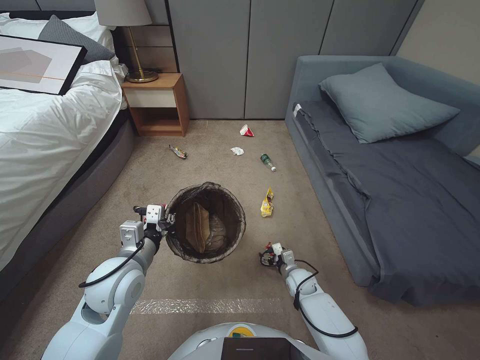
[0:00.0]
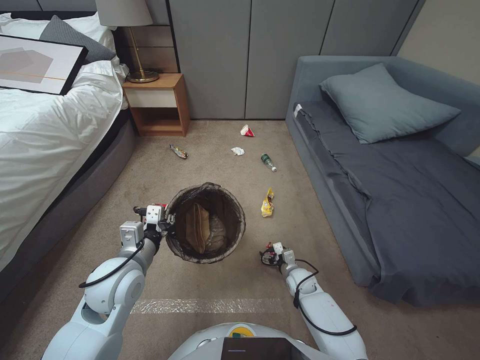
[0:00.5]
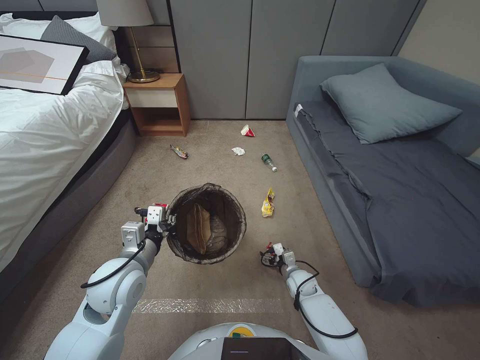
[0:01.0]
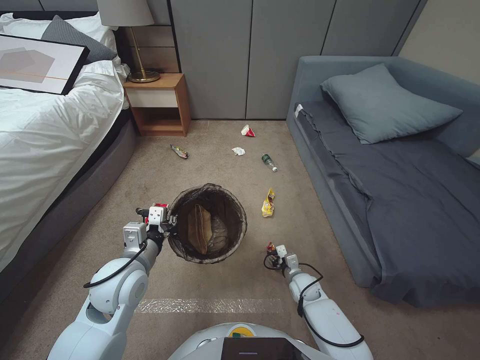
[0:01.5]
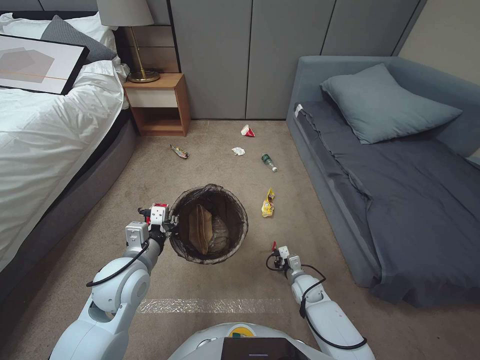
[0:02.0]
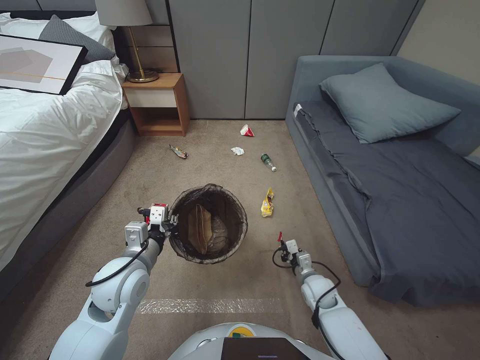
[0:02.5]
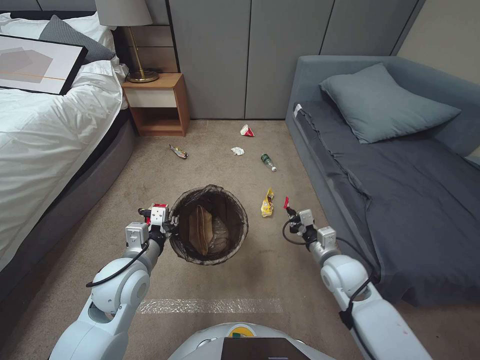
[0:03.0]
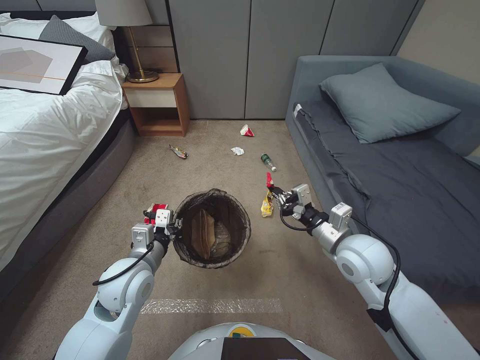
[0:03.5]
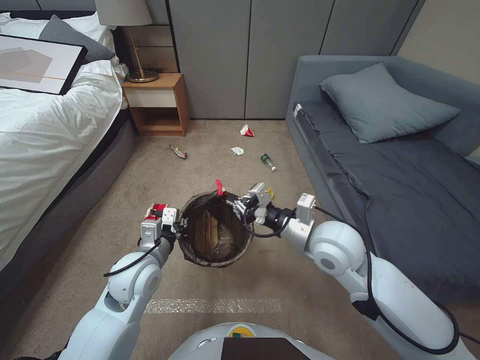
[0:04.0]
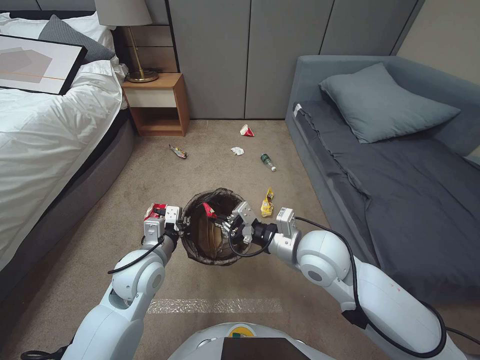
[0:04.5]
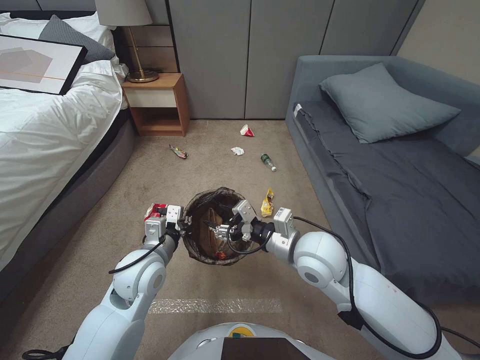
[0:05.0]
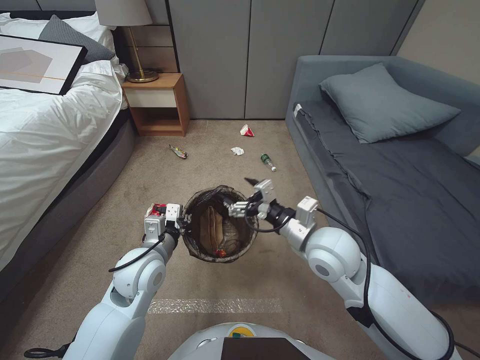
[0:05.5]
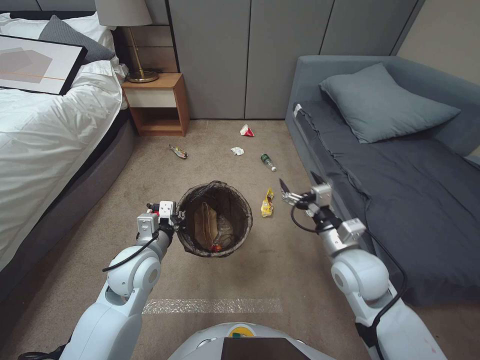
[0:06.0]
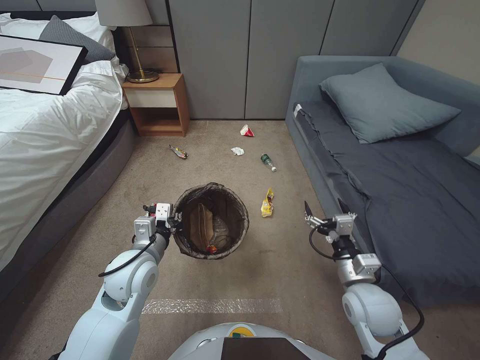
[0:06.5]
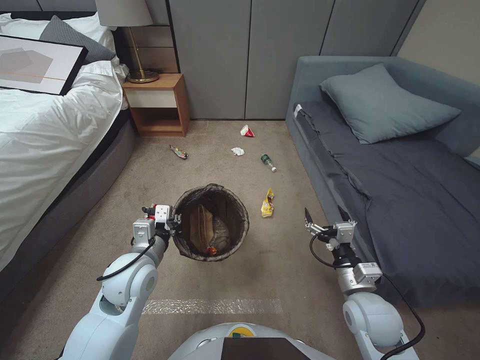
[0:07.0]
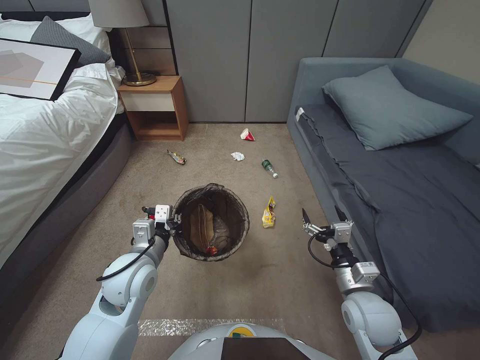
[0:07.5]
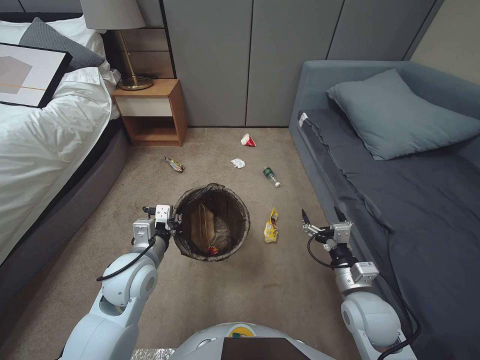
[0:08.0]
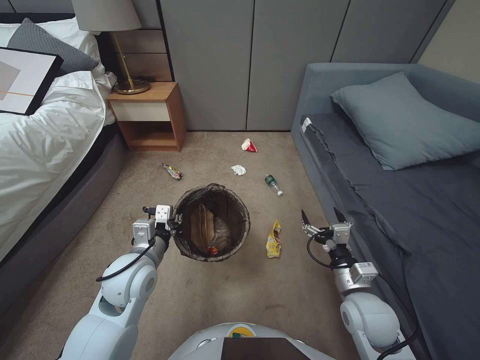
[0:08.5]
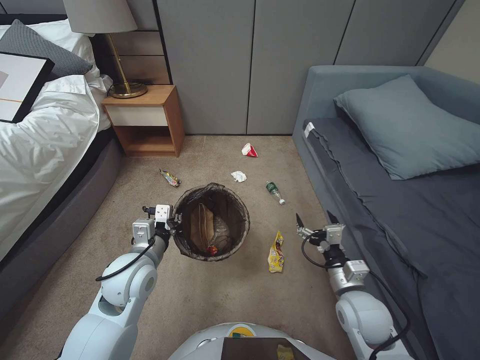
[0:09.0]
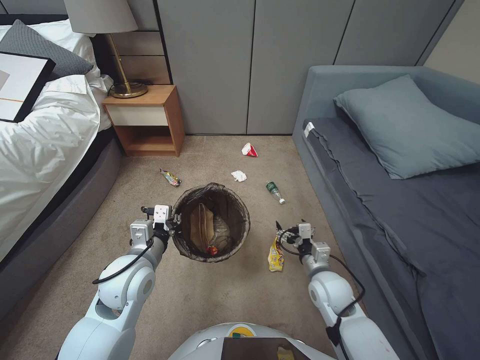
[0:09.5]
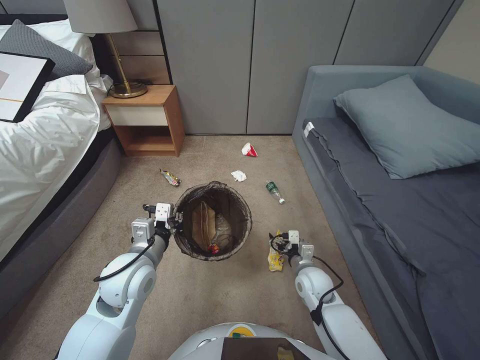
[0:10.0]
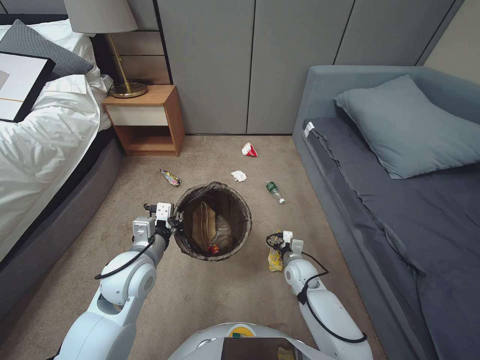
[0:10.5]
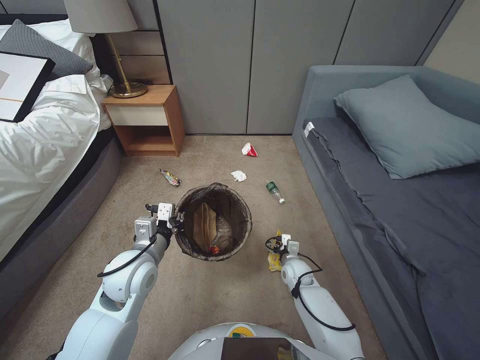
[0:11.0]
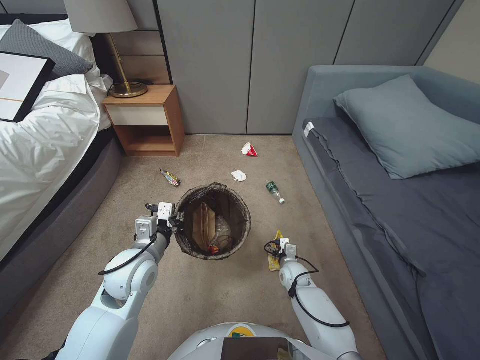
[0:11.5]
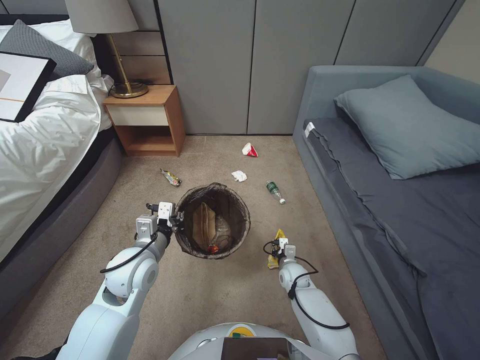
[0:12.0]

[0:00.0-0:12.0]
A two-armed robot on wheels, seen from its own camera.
Task of the whole recording: Pick up the trash bin, then pick up the garbage from the floor and place it into the trash bin.
0:00.0 to 0:02.0: The right gripper closes up.
0:02.0 to 0:04.0: The right gripper moves upward, roughly 35 cm.
0:04.0 to 0:06.0: The right gripper changes place by roughly 5 cm, and opens.
0:06.0 to 0:08.0: The right gripper moves downward, backward and to the right, approximately 15 cm.
0:08.0 to 0:10.0: The right gripper shifts some 15 cm downward, forward and to the left.
0:10.0 to 0:12.0: The right gripper travels downward and forward by about 10 cm, and closes up.

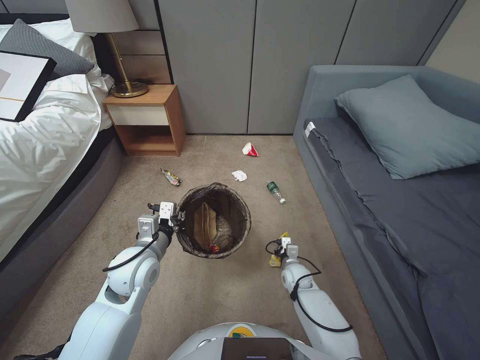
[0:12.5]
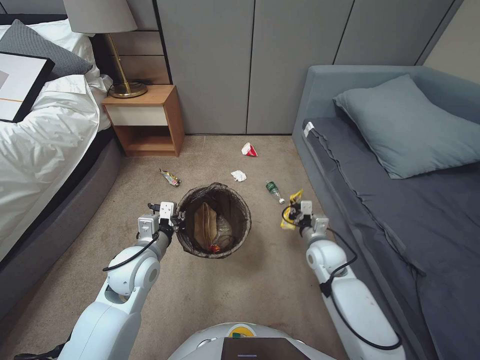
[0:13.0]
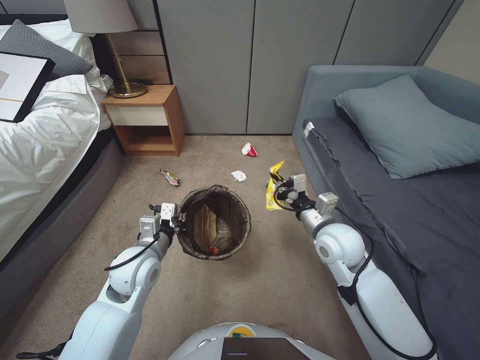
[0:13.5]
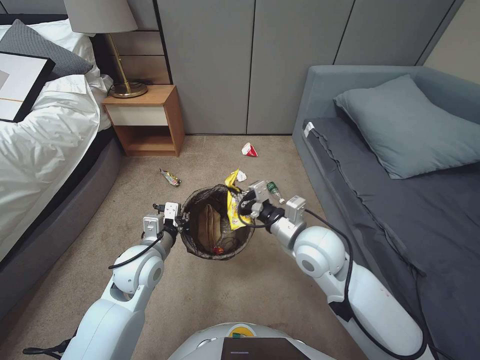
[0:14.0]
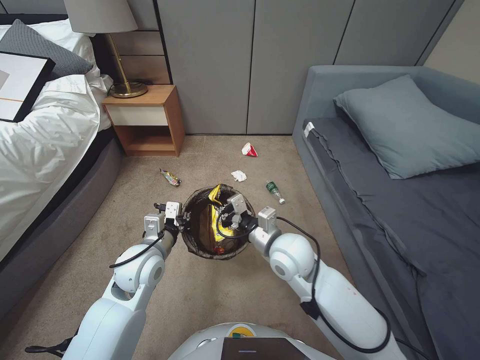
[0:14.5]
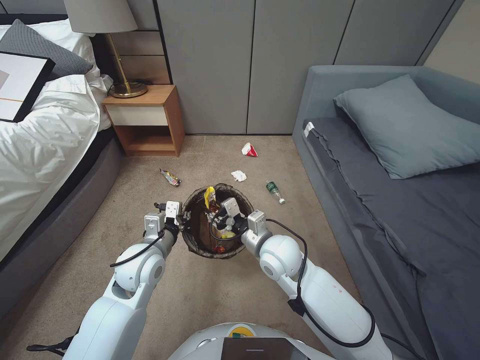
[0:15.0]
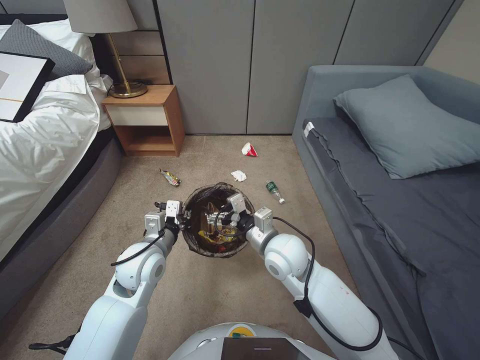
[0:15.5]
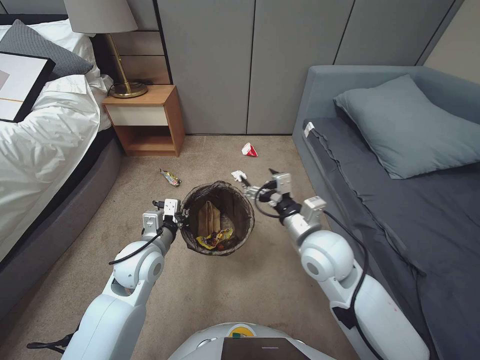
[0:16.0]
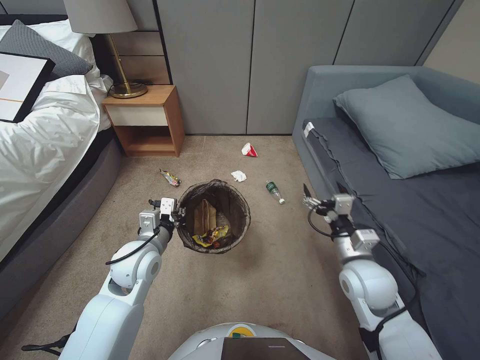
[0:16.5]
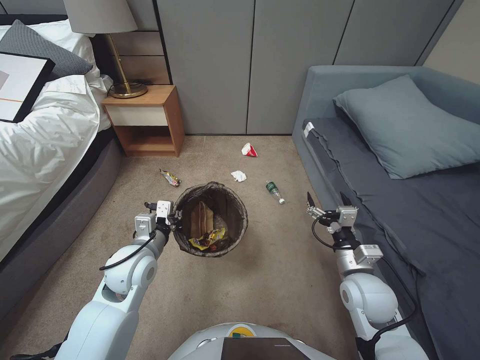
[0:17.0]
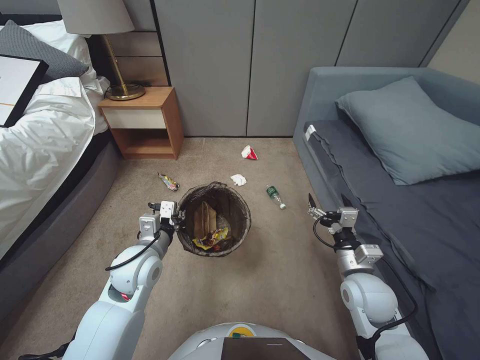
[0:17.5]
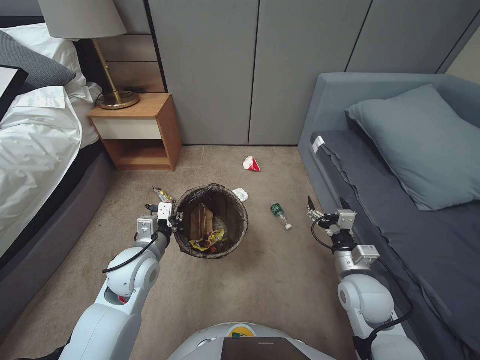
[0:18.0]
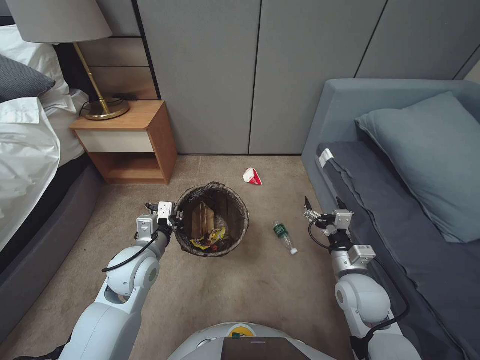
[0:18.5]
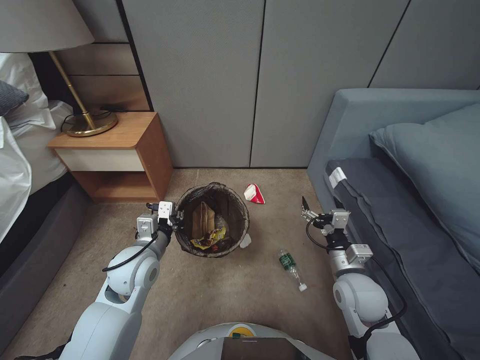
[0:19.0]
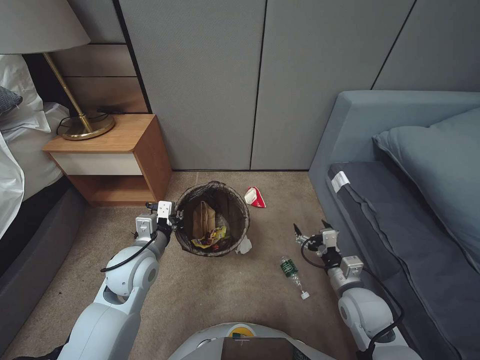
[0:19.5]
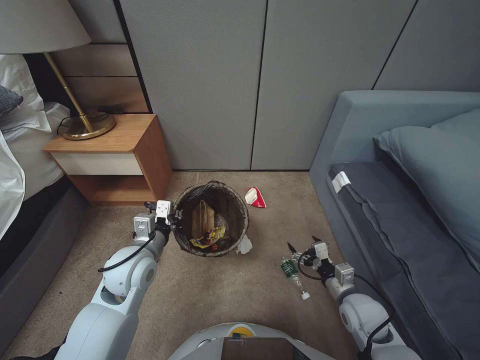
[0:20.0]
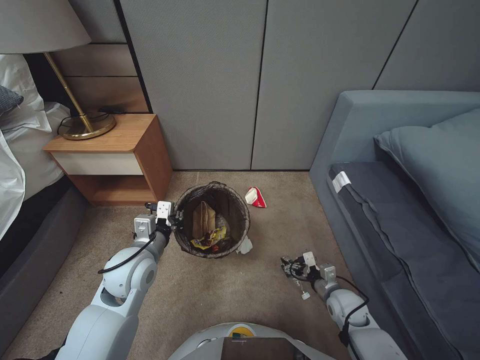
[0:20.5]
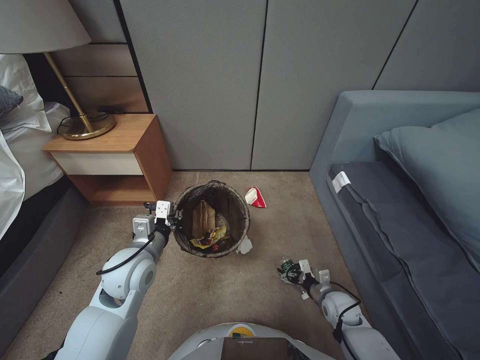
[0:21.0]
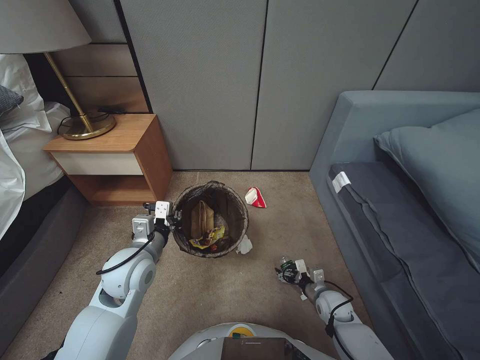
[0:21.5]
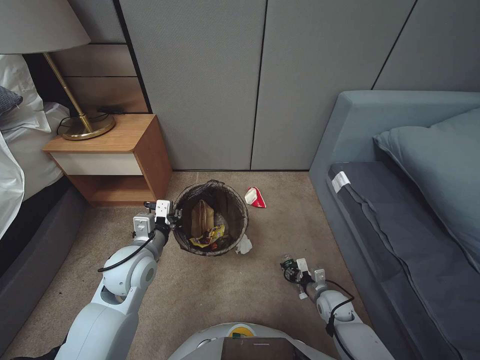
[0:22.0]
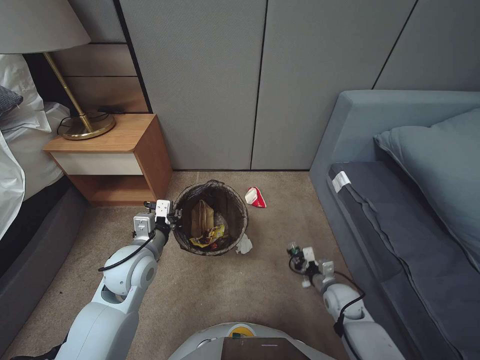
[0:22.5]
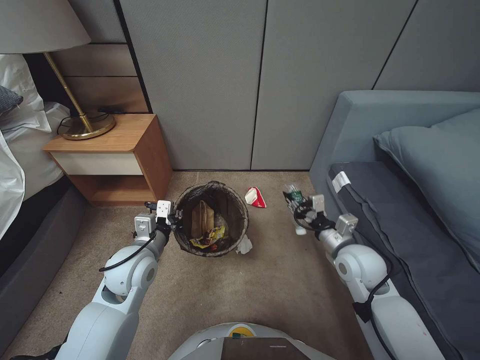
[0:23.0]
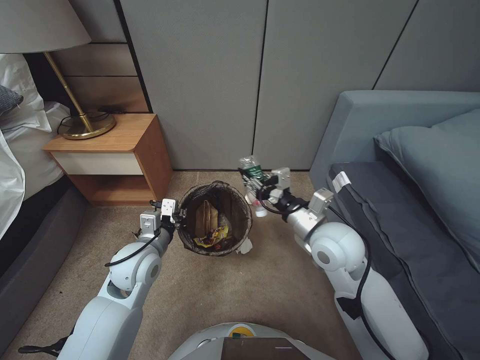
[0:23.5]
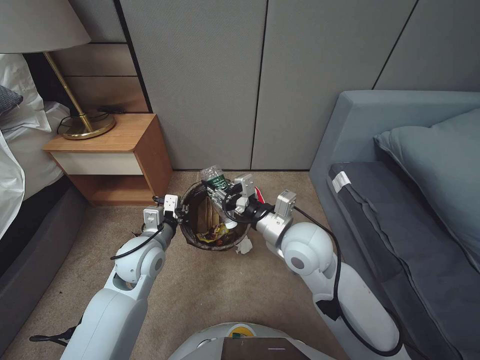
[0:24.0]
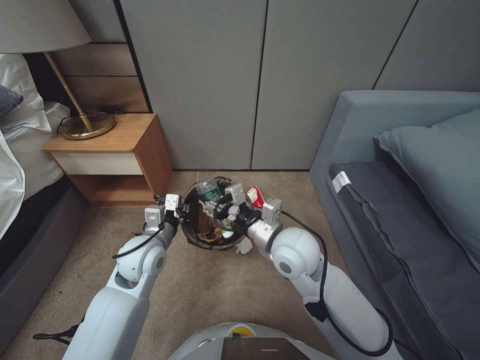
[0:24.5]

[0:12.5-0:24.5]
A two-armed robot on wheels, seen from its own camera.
Task of the whole recording: Pick up the trash bin, then pick up the garbage from the floor and place it into the trash bin.
0:12.5 to 0:14.5: The right gripper moves upward, approximately 30 cm.
0:14.5 to 0:16.5: The right gripper goes about 15 cm to the right, and opens up.
0:16.5 to 0:18.5: The right gripper moves downward, approximately 5 cm.
0:18.5 to 0:20.5: The right gripper moves downward, roughly 15 cm.
0:20.5 to 0:22.5: The right gripper closes up.
0:22.5 to 0:24.5: The right gripper moves upward and to the left, some 35 cm.

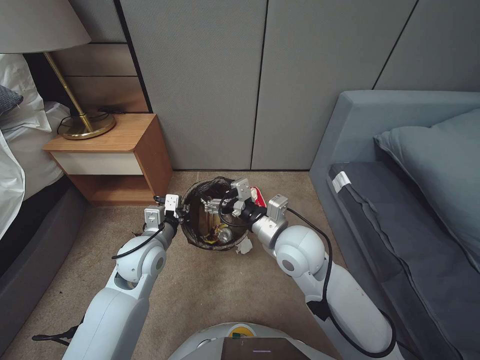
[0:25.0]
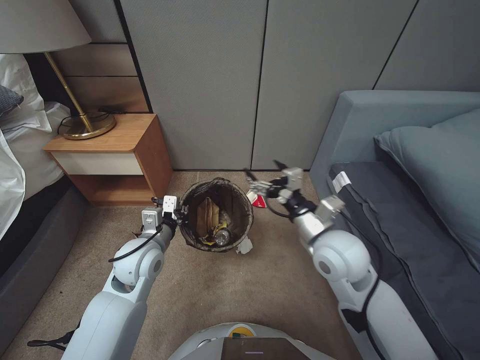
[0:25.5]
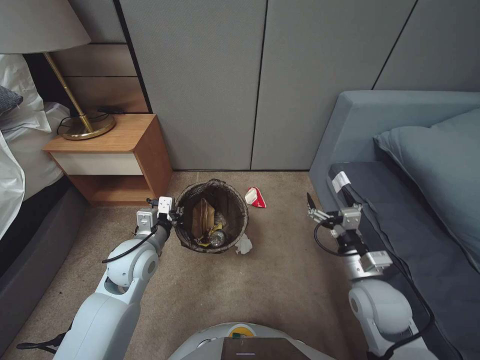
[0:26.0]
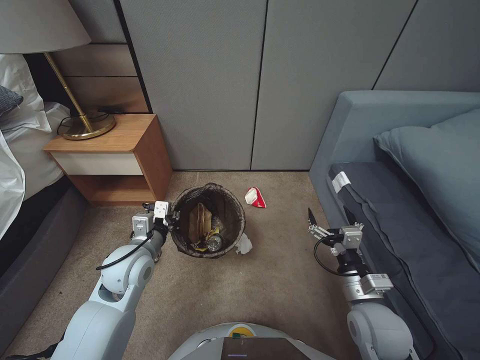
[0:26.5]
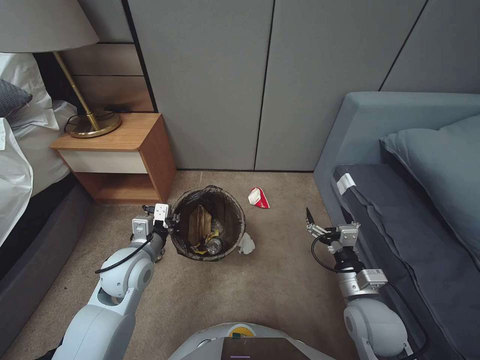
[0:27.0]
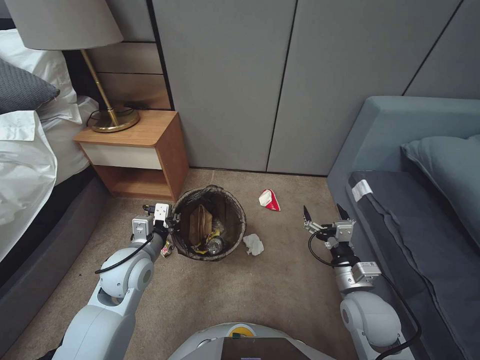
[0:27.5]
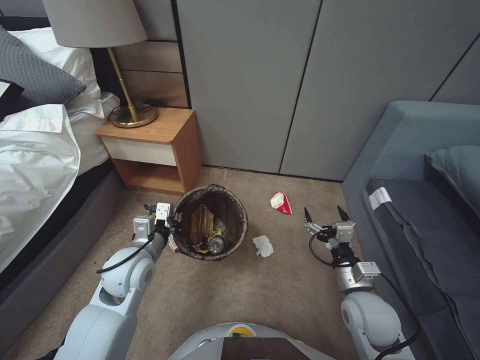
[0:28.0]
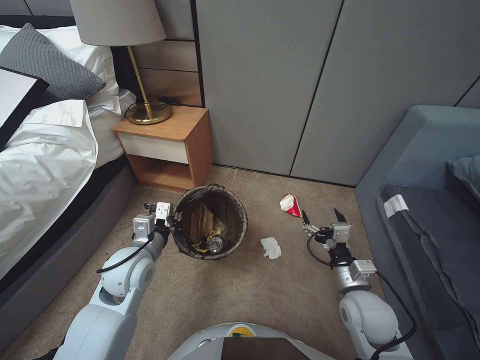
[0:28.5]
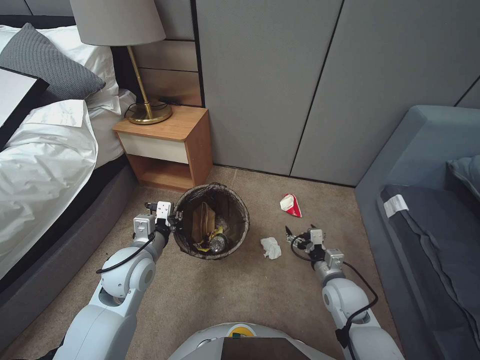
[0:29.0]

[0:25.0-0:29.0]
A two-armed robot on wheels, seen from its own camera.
Task of the whole recording: Pick up the trash bin, then pick up the garbage from the floor and place it into the trash bin.
0:25.0 to 0:27.0: The right gripper travels to the right, downward and backward by approximately 25 cm.
0:27.0 to 0:29.0: The right gripper goes about 10 cm downward and forward.
